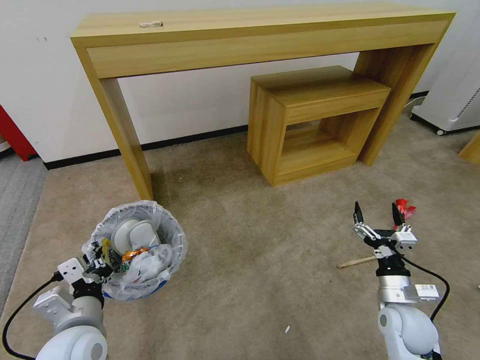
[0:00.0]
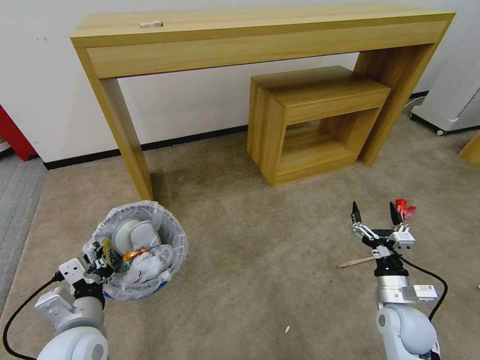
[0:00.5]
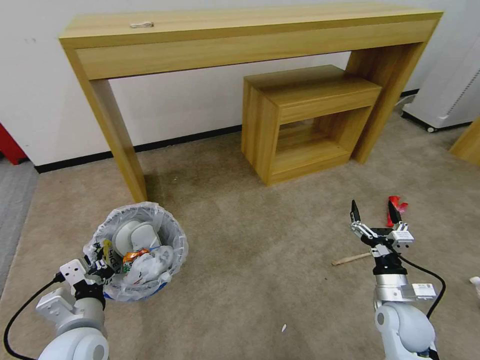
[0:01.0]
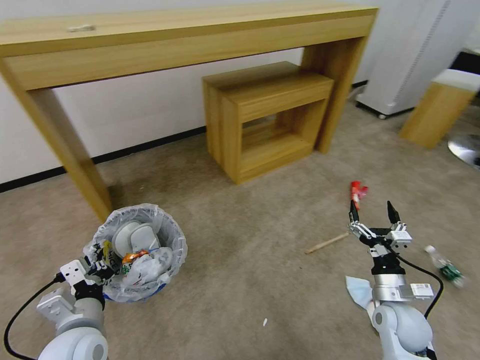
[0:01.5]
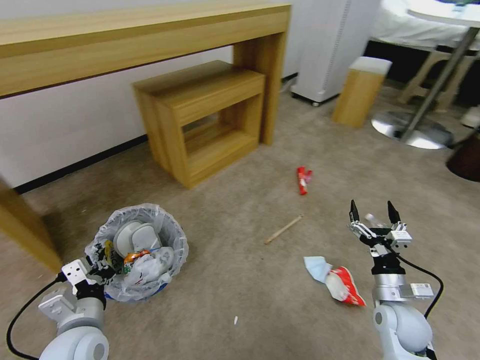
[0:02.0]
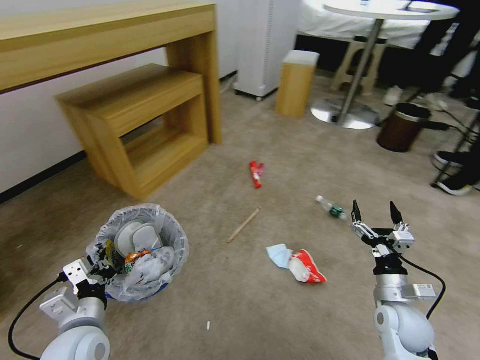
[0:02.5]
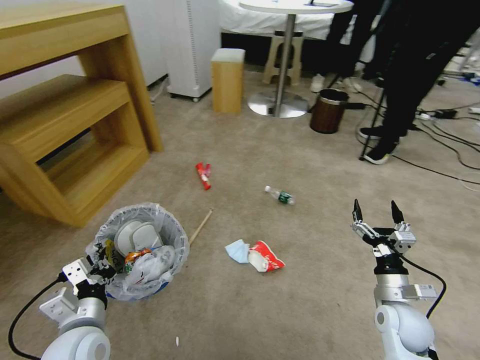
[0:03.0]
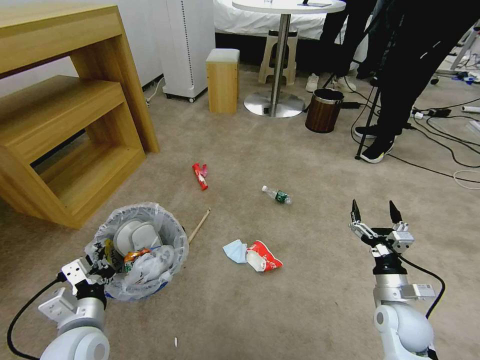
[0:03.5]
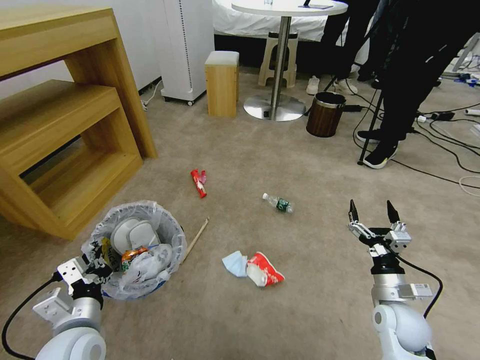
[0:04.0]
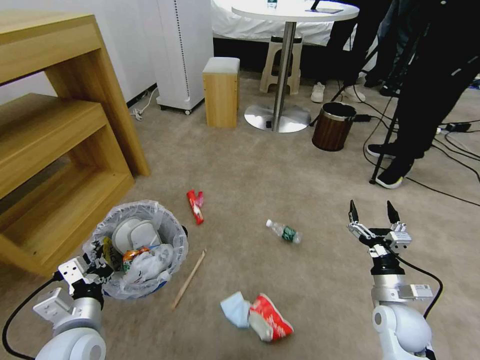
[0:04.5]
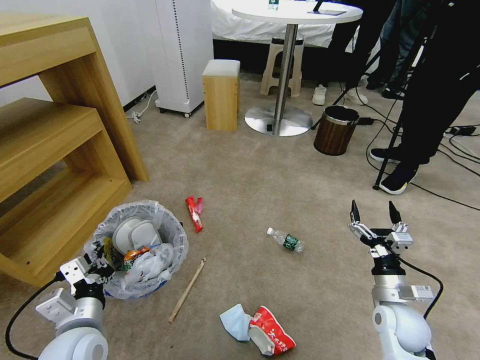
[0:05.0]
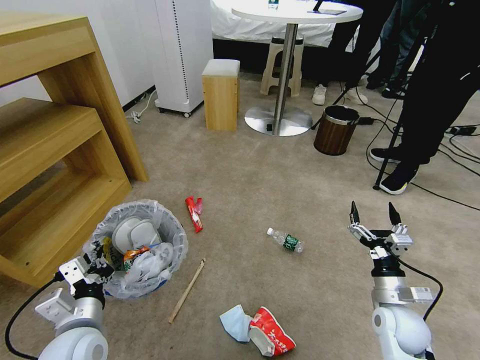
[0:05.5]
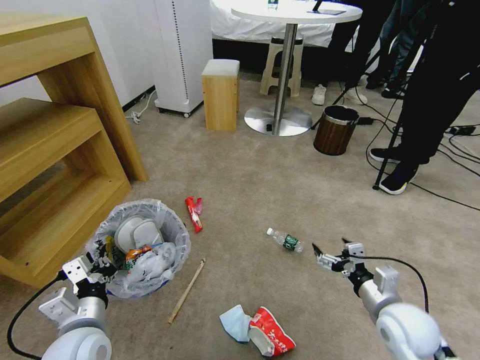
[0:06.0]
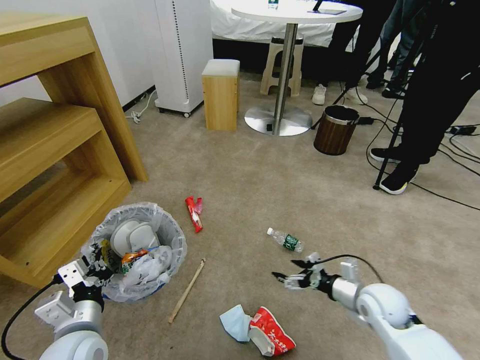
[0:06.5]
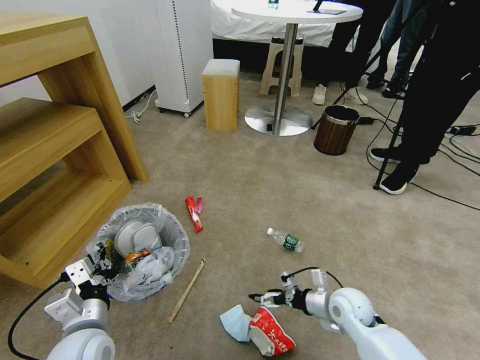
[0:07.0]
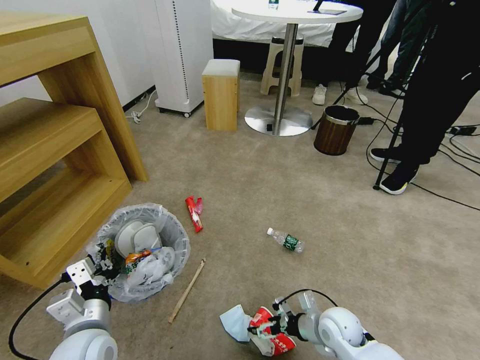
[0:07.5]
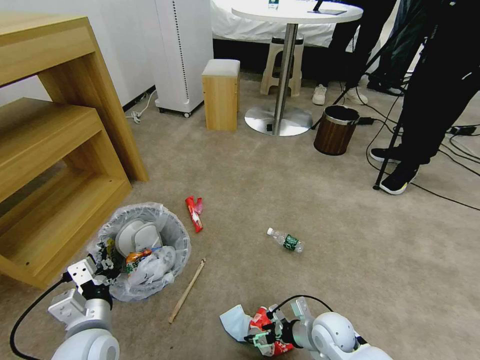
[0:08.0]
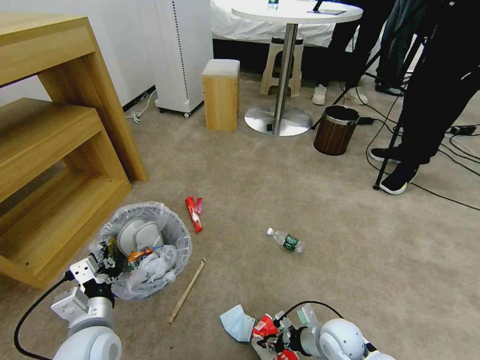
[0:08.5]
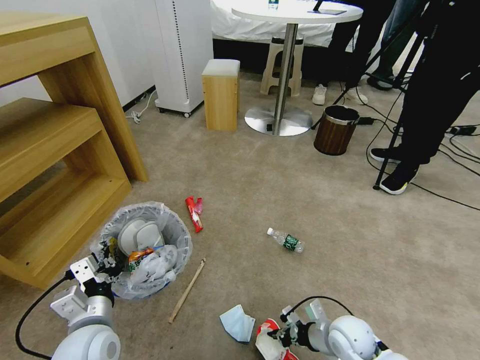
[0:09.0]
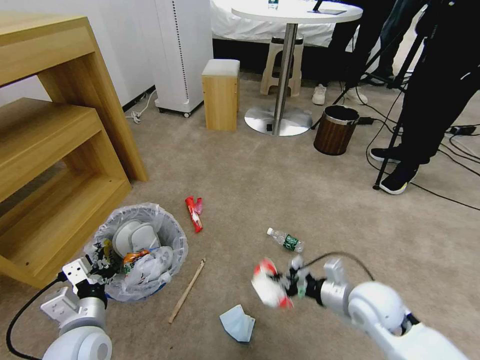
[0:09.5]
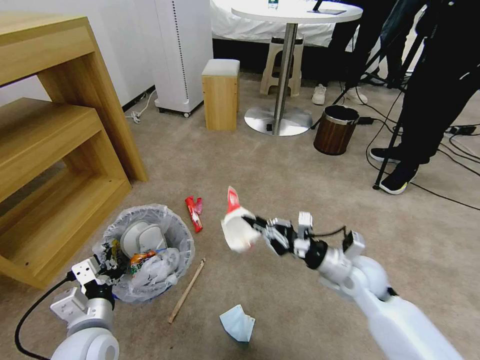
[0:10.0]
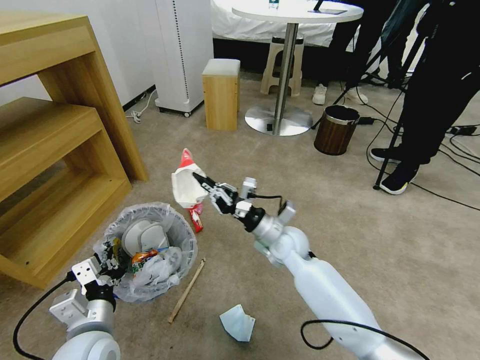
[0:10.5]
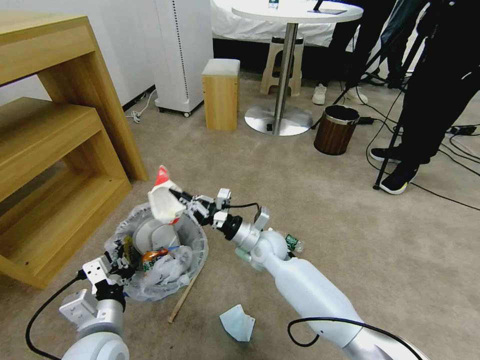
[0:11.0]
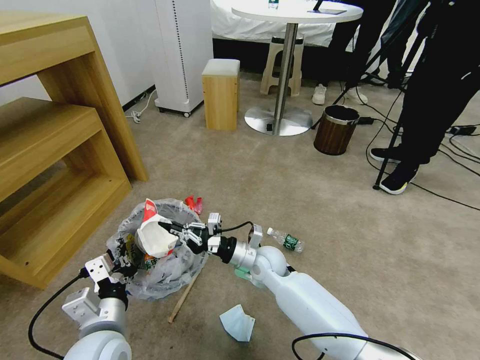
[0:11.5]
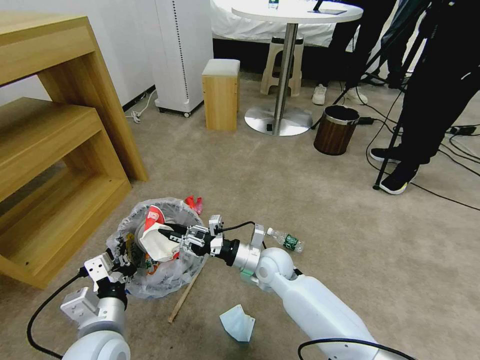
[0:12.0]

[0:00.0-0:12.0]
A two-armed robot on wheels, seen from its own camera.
Task of the whole recording: Pick up the trash bin and place the garbage on the floor into it.
0:06.0 to 0:08.0: The right gripper moves downward and to the left, roughly 15 cm.
0:08.0 to 0:10.0: The right gripper shifts some 15 cm upward, and closes its fingers.
0:10.0 to 0:12.0: The right gripper travels to the left by some 20 cm.

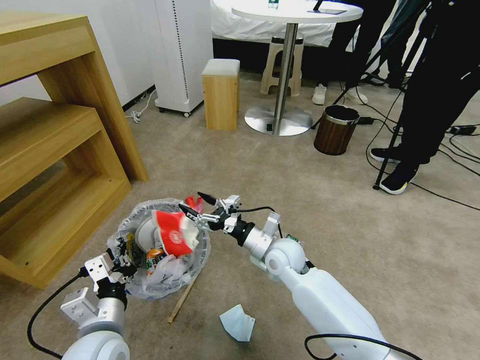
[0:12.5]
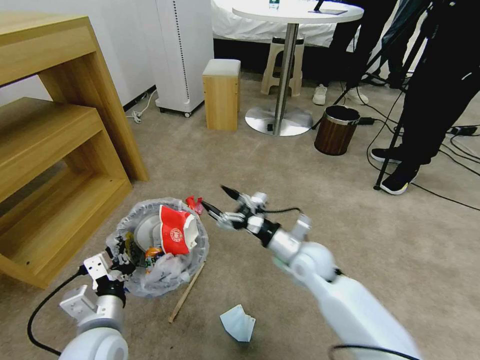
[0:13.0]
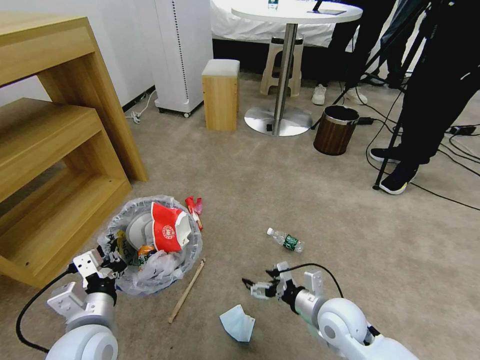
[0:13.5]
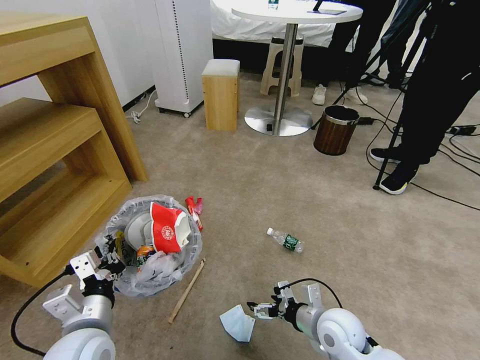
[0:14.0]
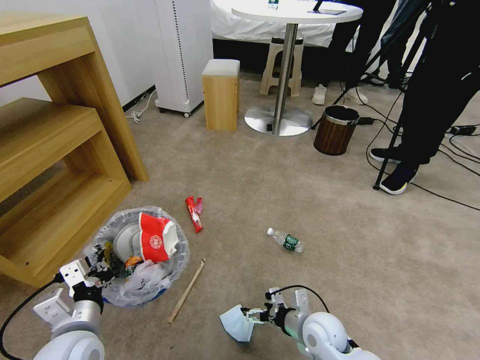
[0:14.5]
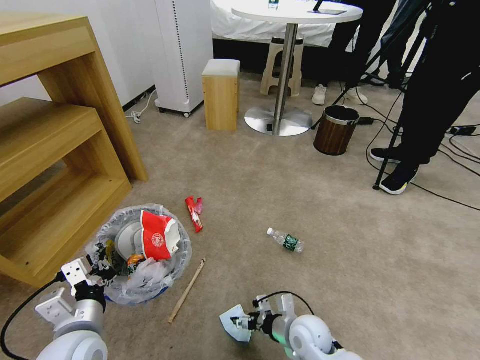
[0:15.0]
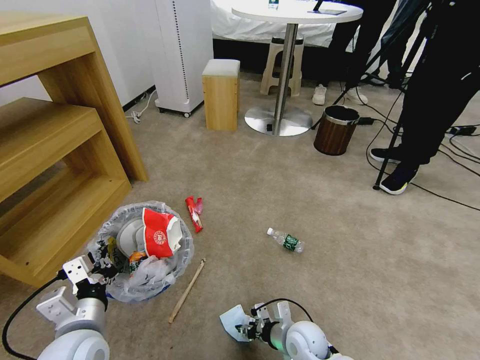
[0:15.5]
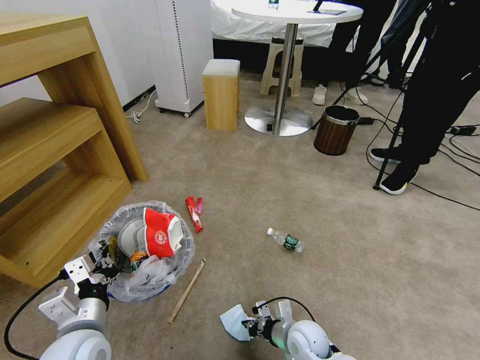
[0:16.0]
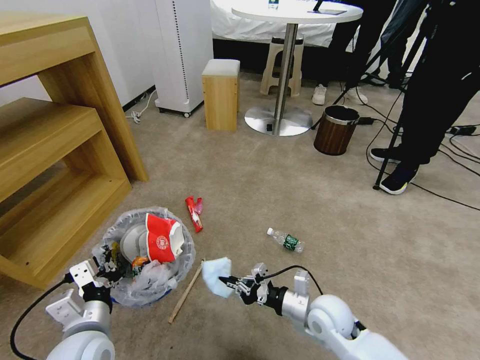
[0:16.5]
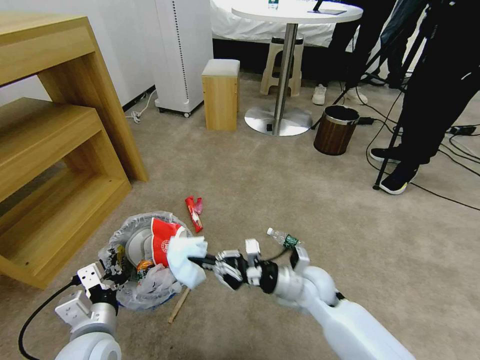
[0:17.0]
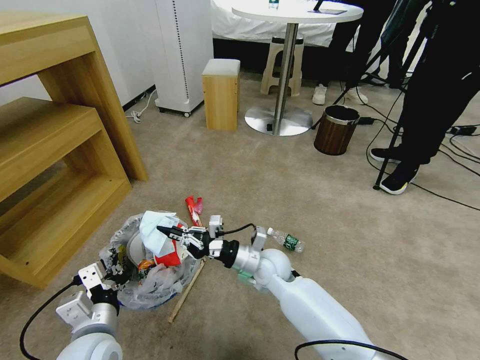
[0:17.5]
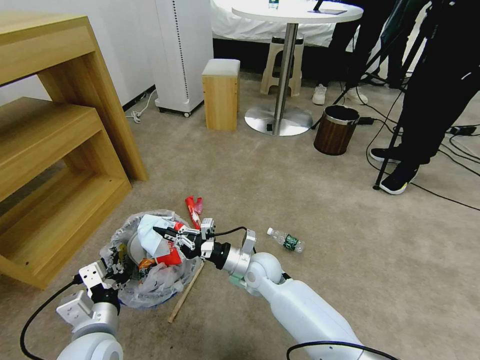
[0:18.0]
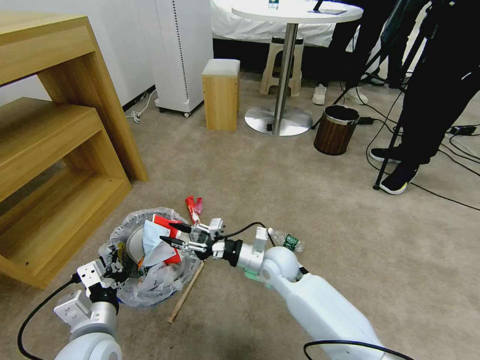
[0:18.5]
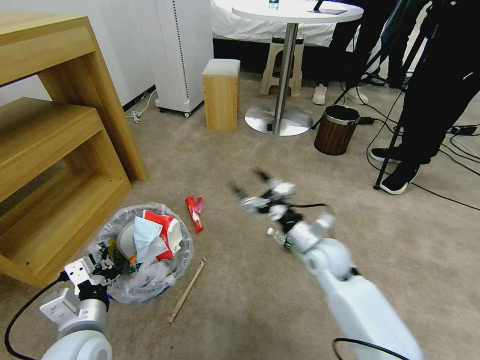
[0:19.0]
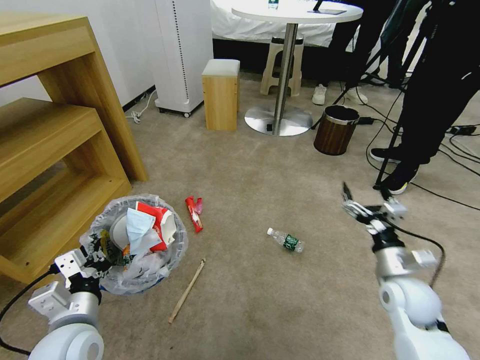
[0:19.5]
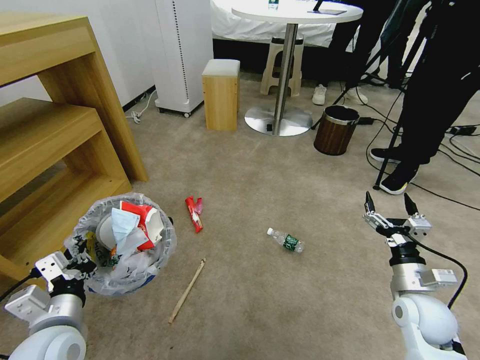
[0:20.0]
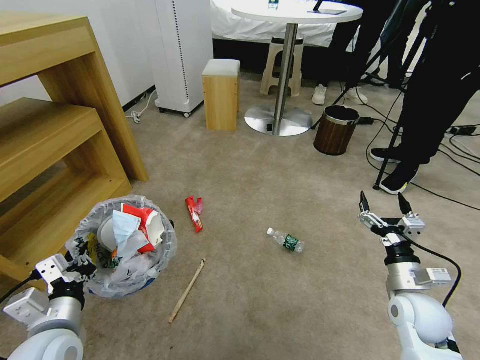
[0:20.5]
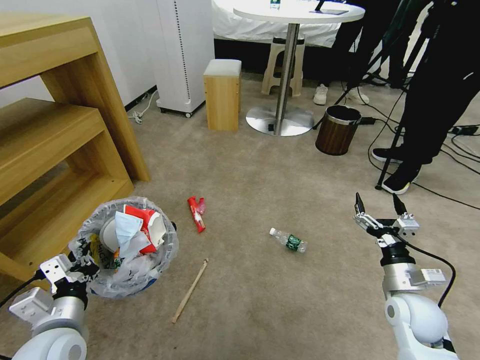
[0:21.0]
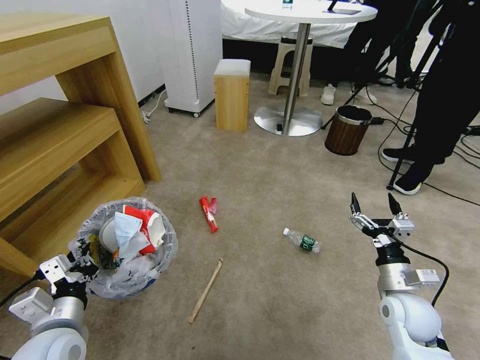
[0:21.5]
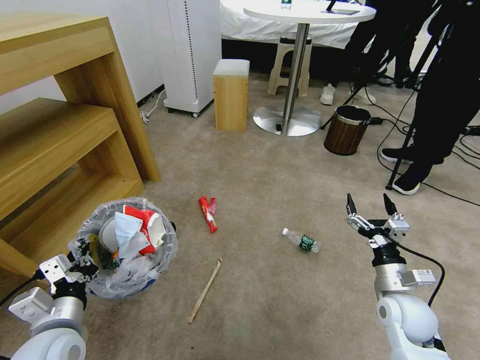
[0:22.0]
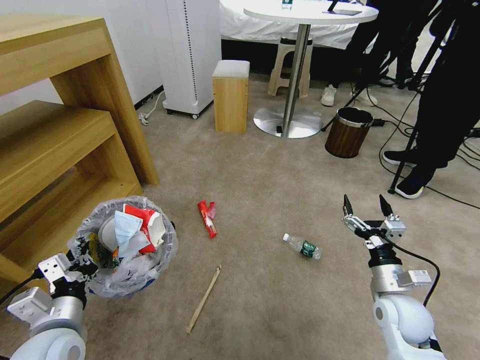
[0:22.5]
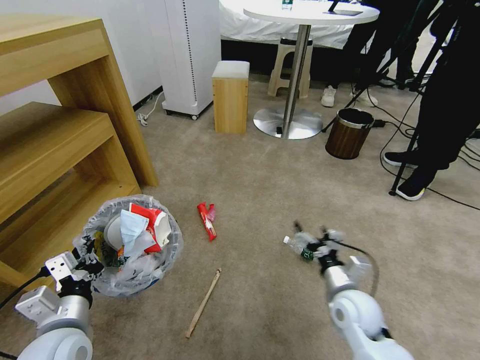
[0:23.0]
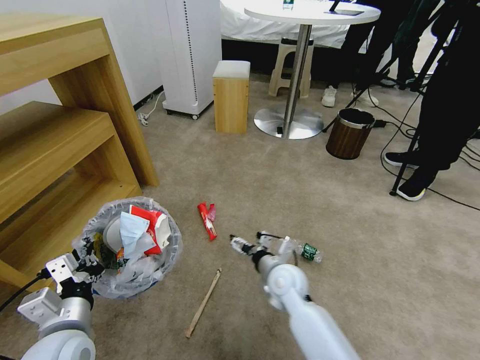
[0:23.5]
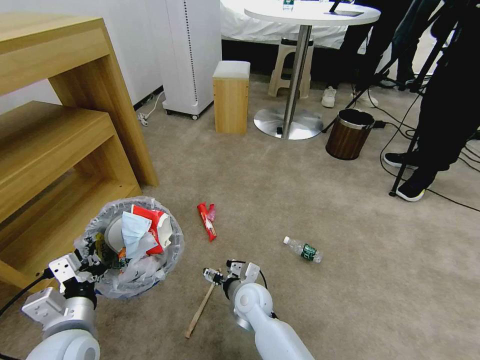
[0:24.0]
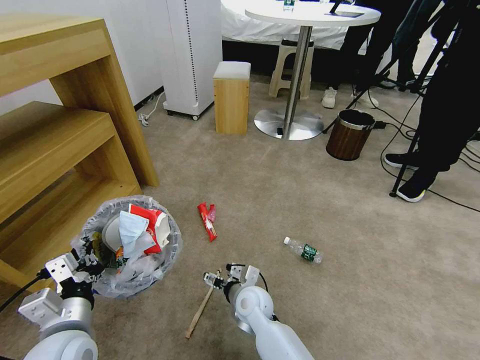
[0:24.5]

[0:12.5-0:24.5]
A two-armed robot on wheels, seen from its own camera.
Task of the whole recording: Pick up the trash bin and place the garbage on the floor into it.
0:12.5 to 0:14.5: The right gripper heads backward, downward and to the right, covering about 20 cm.
0:14.5 to 0:16.5: The right gripper is displaced upward by roughly 5 cm, and closes its fingers.
0:16.5 to 0:18.5: The right gripper travels to the left and forward by approximately 15 cm, and opens.
0:18.5 to 0:20.5: The right gripper travels to the right and backward by roughly 30 cm, and opens up. The left gripper moves to the left, roughly 5 cm.
0:22.5 to 0:24.5: The right gripper heads to the left, covering about 30 cm.

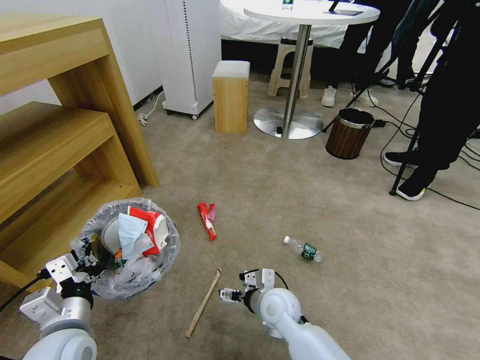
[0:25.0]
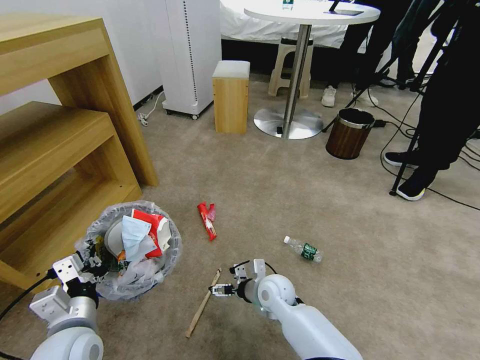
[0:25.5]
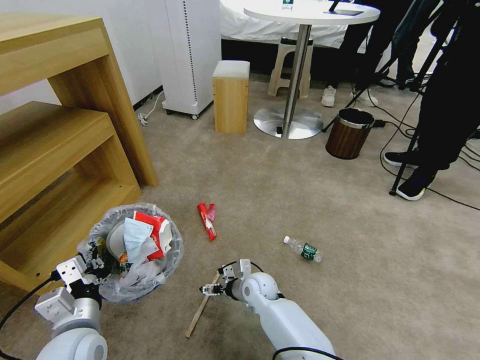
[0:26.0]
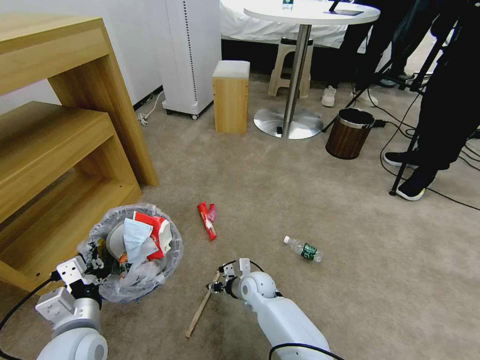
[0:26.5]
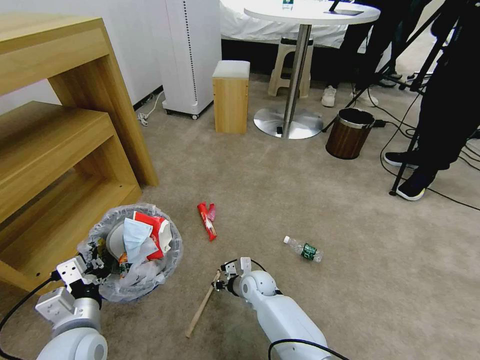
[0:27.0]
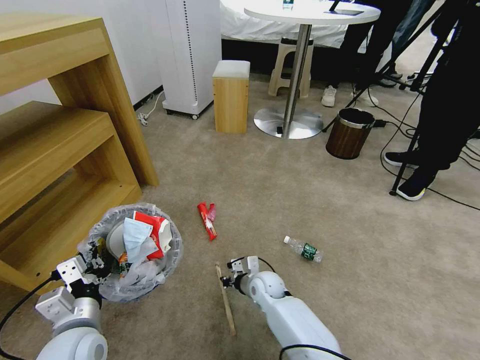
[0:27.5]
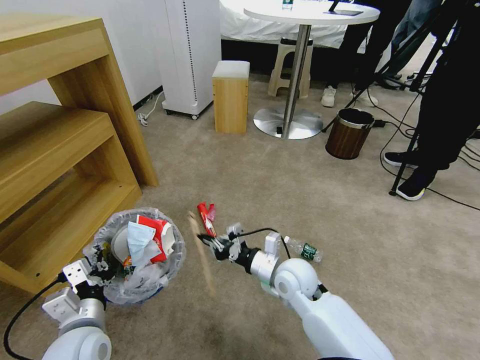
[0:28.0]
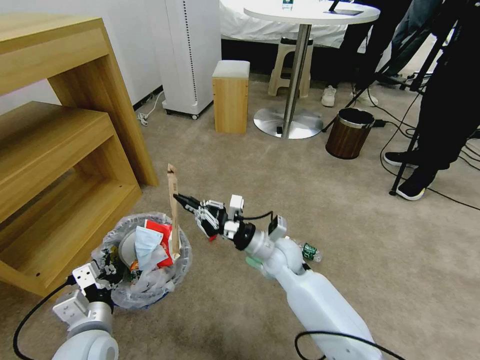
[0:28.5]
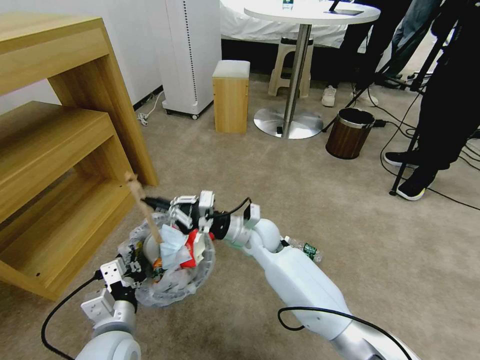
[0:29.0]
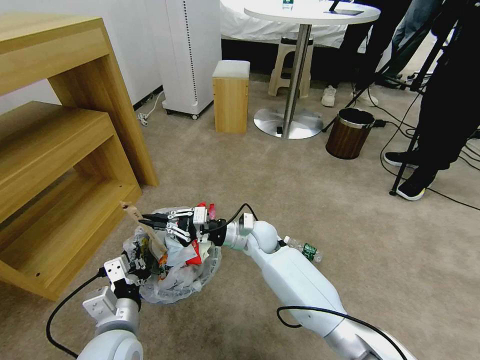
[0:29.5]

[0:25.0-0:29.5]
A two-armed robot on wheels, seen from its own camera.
Task of the whole recording: Pick up the trash bin and place the garbage on the floor into it.
0:25.0 to 0:27.0: The right gripper is displaced forward and downward by approximately 10 cm, and closes up.
0:27.0 to 0:29.5: The left gripper is displaced to the right by roughly 5 cm. Meanwhile the right gripper is displaced upward by some 15 cm.
